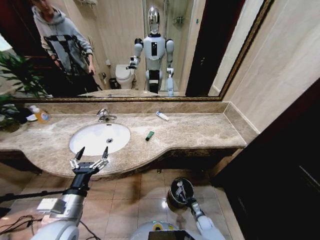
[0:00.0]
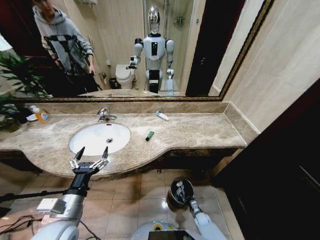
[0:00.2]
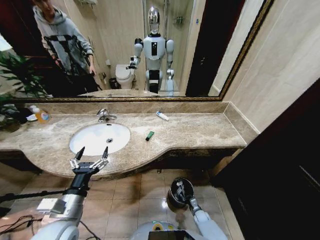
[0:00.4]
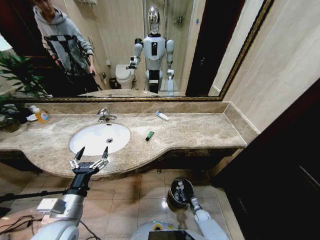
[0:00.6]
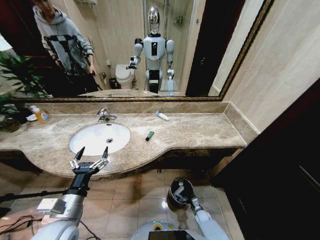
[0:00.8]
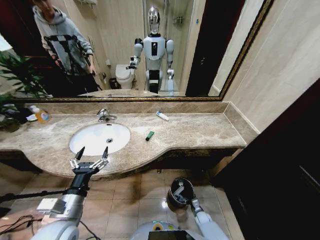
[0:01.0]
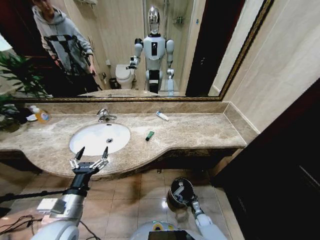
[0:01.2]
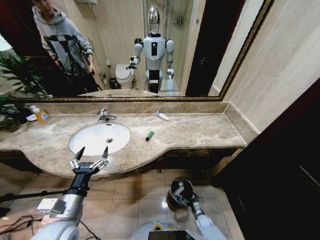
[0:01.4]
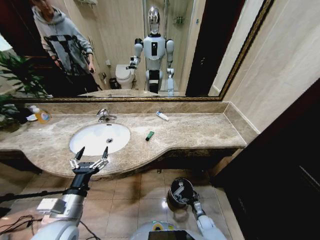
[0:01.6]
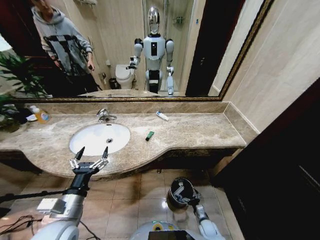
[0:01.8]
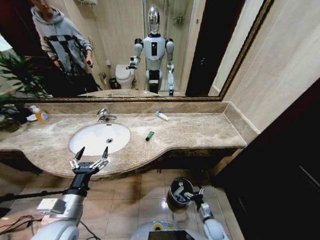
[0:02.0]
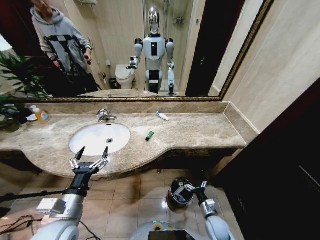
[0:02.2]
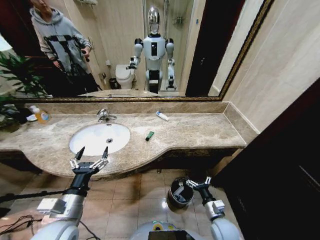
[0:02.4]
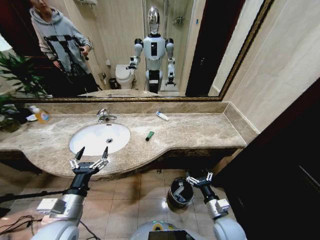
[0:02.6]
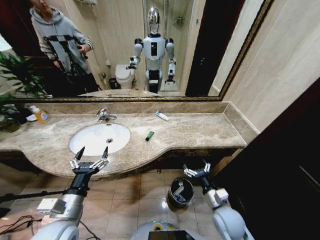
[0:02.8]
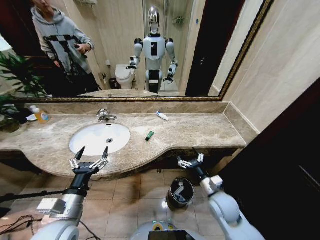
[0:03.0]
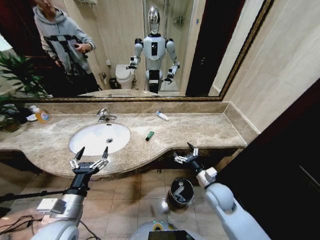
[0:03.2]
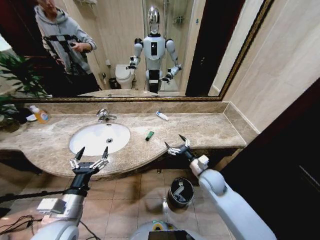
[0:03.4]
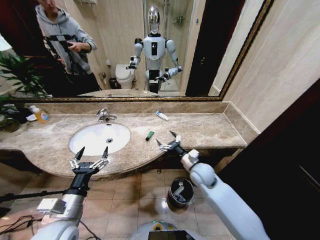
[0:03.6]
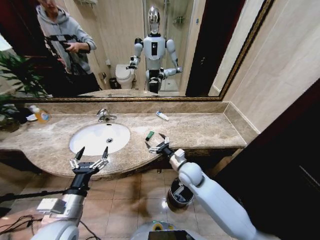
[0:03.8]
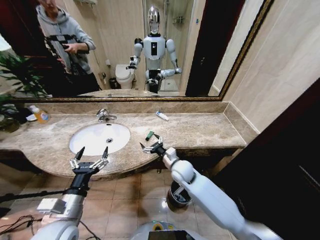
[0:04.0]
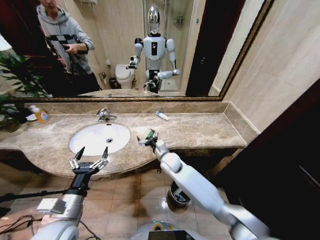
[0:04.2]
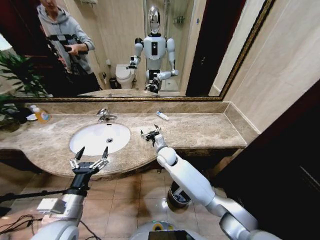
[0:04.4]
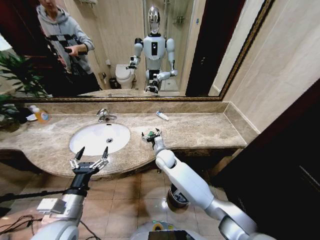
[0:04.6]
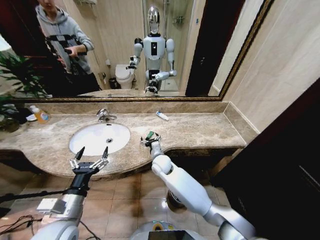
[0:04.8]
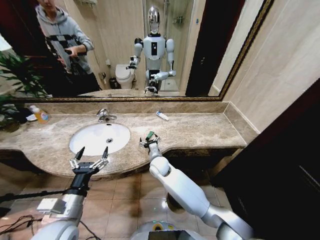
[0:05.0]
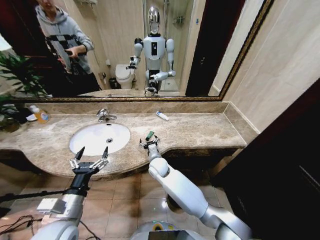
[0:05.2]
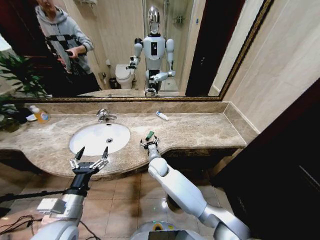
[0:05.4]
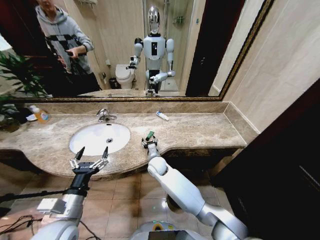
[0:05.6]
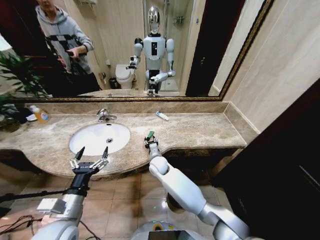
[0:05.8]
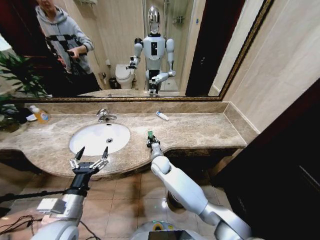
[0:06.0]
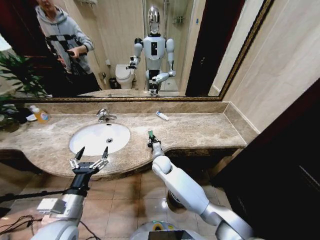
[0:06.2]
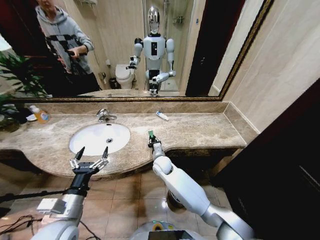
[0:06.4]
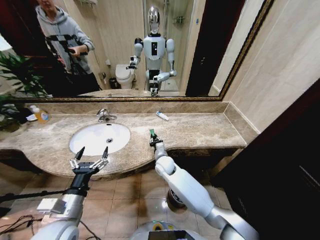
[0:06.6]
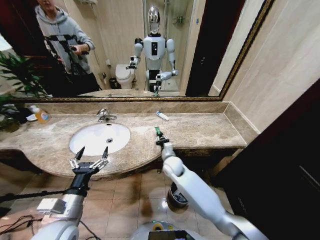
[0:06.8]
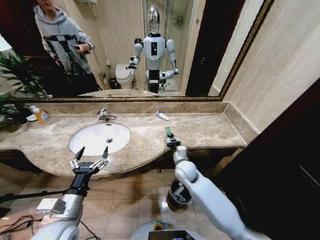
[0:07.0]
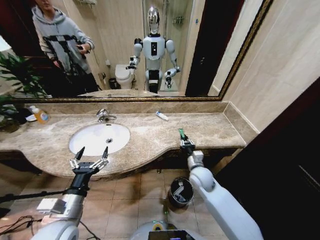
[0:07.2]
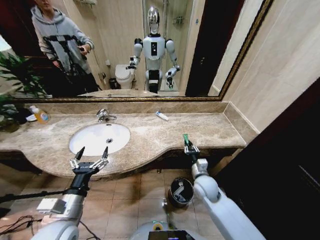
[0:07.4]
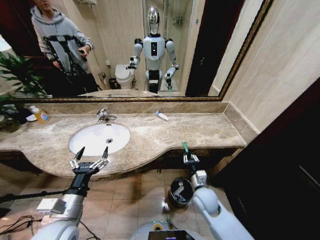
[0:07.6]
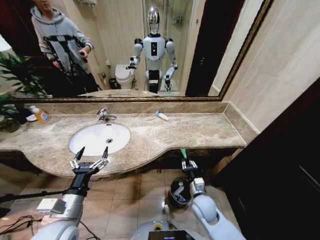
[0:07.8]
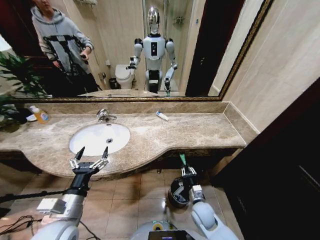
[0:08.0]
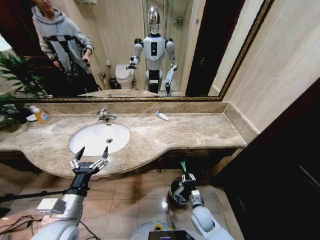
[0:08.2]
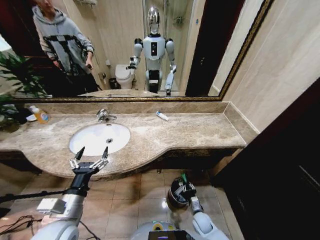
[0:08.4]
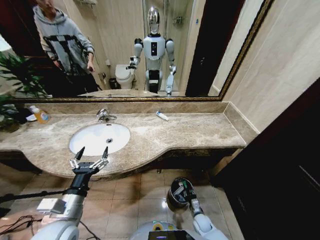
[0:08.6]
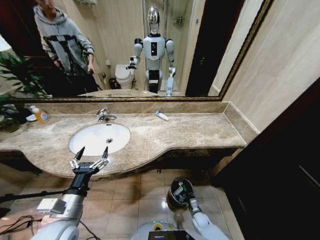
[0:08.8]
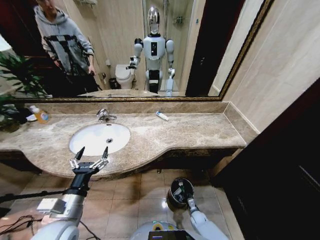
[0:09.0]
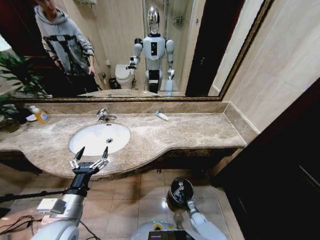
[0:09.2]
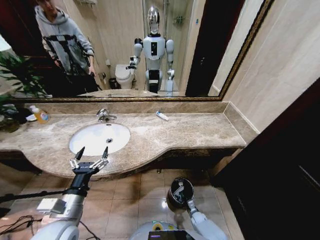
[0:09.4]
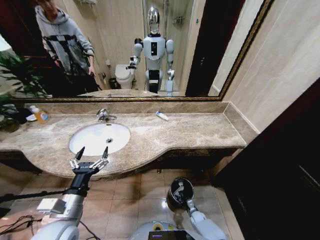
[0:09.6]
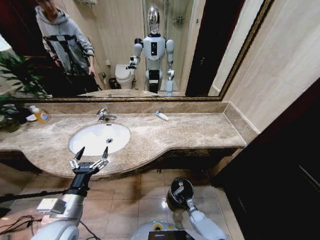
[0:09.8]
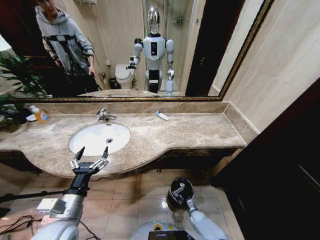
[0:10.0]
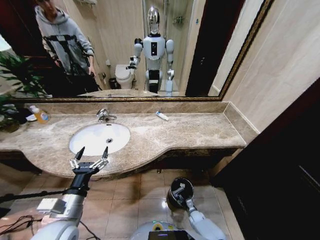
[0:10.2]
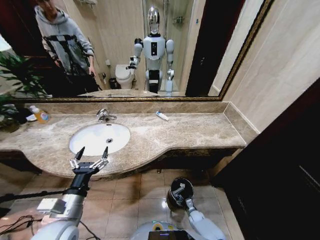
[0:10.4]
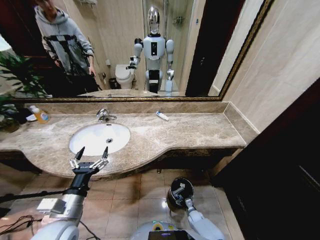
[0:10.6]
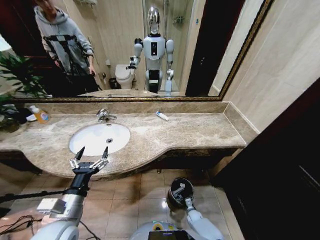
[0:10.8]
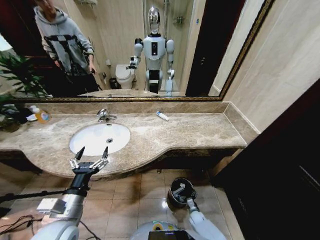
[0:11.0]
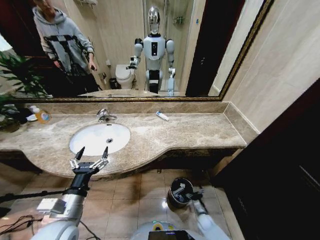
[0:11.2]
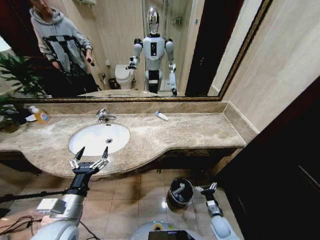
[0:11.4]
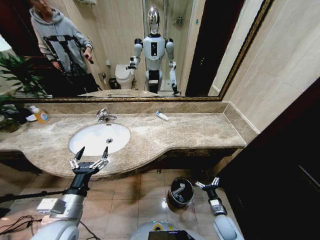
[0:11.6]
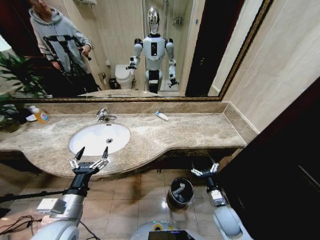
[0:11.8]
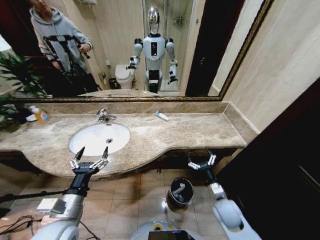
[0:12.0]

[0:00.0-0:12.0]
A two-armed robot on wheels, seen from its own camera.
Task of the whole recording: Pick up the trash from the sink and place it in the trash bin.
0:01.6 to 0:03.0: The right gripper shifts roughly 35 cm upward.
0:03.0 to 0:04.4: The right gripper heads forward and to the left, covering roughly 30 cm.
0:04.4 to 0:06.0: The right gripper shifts by roughly 5 cm, and closes up.
0:06.0 to 0:07.6: The right gripper moves to the right and backward, approximately 25 cm.
0:07.6 to 0:09.0: The right gripper heads downward, covering about 30 cm.
0:09.0 to 0:10.4: The right gripper opens up.
0:10.4 to 0:12.0: The right gripper heads upward, covering some 35 cm.

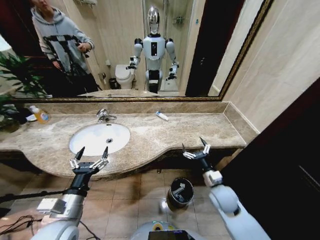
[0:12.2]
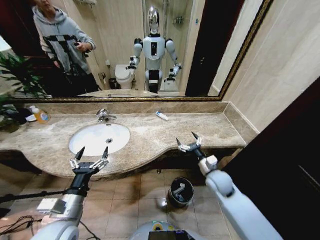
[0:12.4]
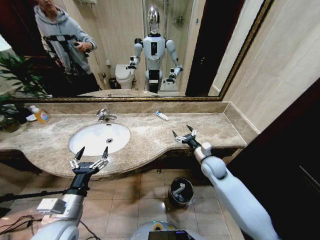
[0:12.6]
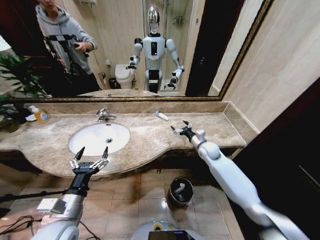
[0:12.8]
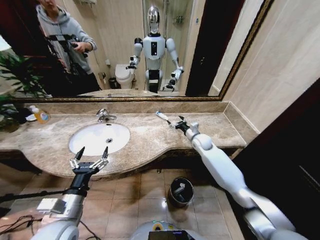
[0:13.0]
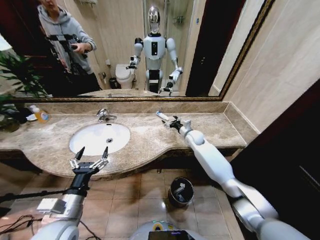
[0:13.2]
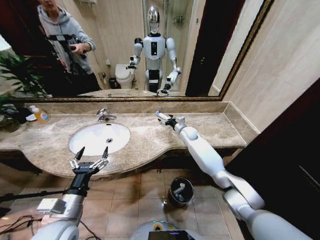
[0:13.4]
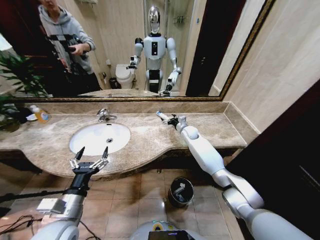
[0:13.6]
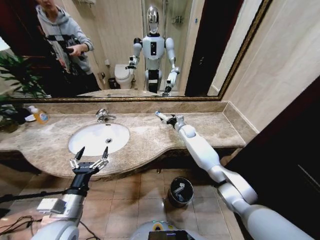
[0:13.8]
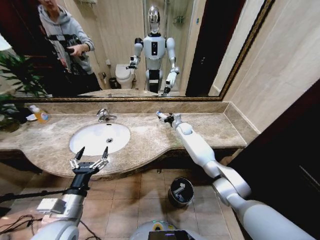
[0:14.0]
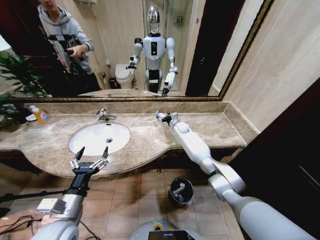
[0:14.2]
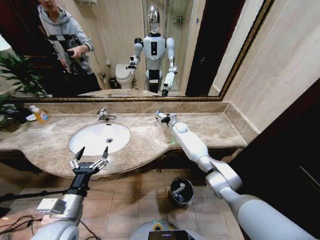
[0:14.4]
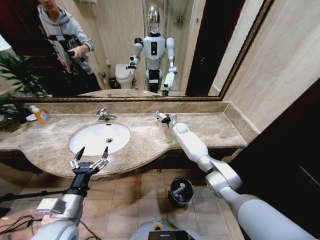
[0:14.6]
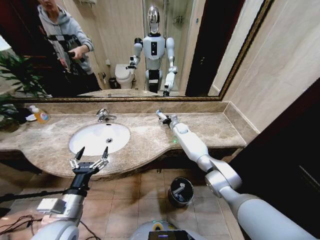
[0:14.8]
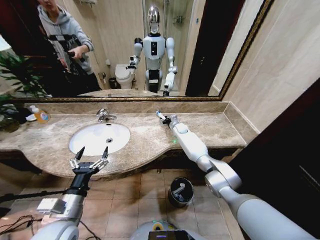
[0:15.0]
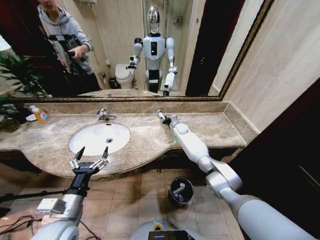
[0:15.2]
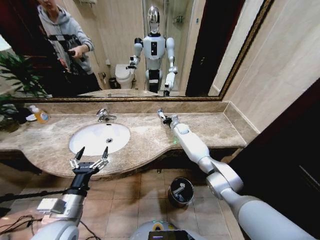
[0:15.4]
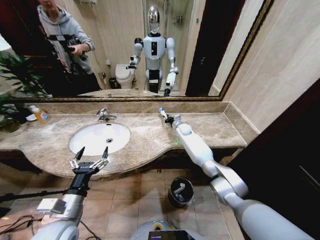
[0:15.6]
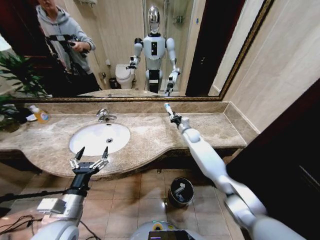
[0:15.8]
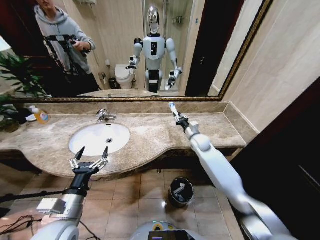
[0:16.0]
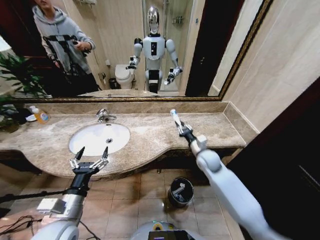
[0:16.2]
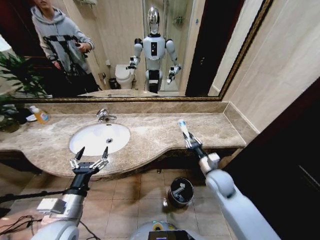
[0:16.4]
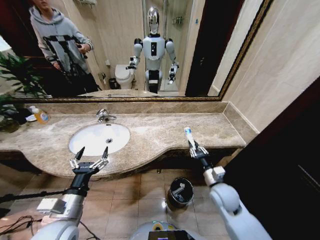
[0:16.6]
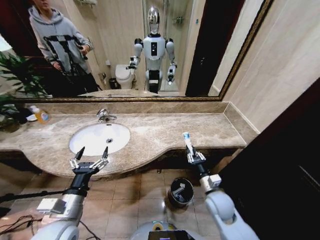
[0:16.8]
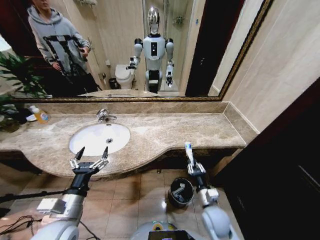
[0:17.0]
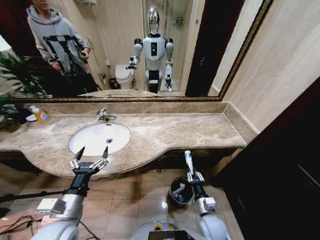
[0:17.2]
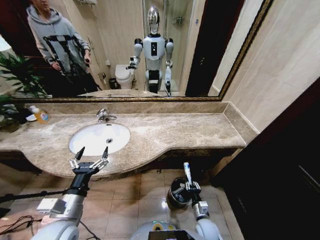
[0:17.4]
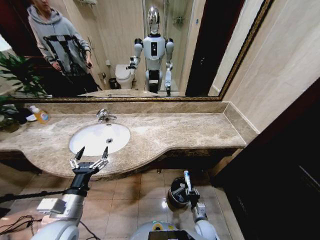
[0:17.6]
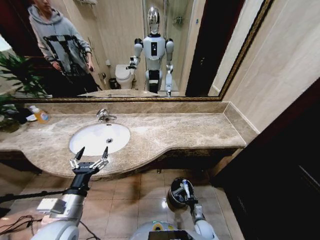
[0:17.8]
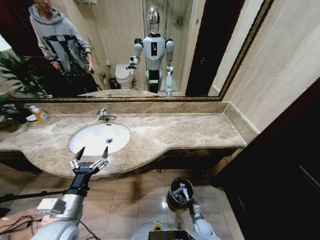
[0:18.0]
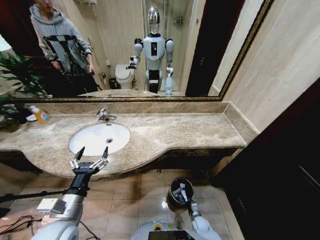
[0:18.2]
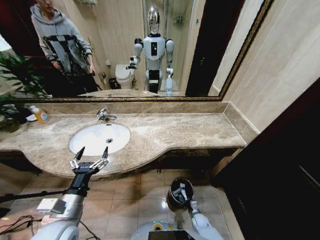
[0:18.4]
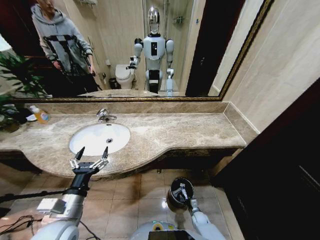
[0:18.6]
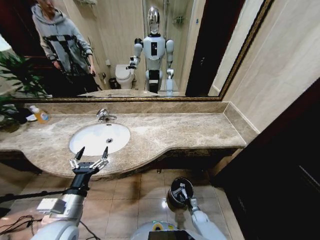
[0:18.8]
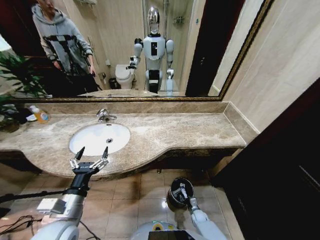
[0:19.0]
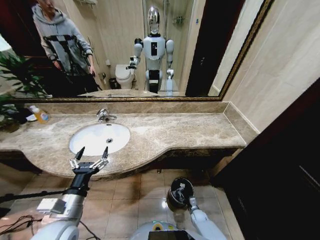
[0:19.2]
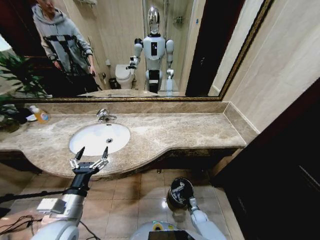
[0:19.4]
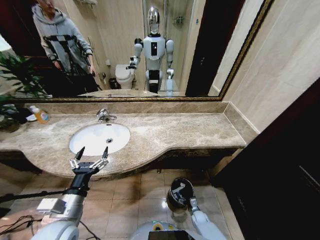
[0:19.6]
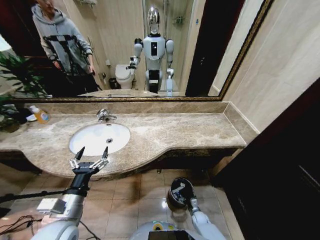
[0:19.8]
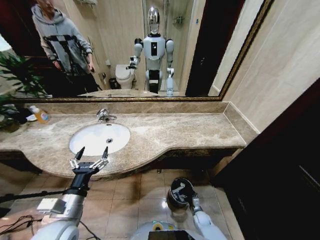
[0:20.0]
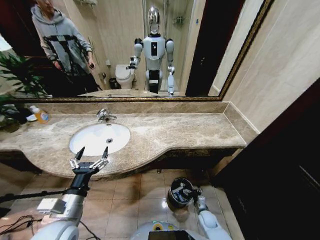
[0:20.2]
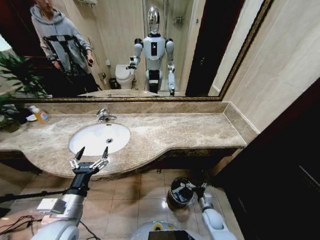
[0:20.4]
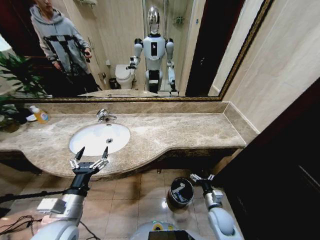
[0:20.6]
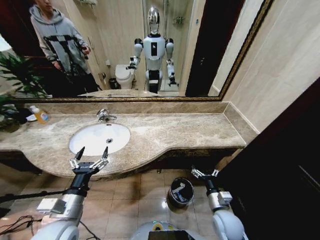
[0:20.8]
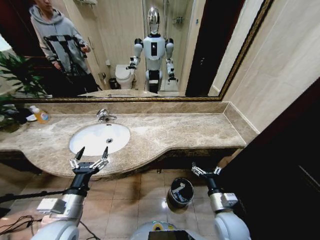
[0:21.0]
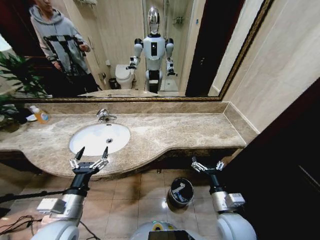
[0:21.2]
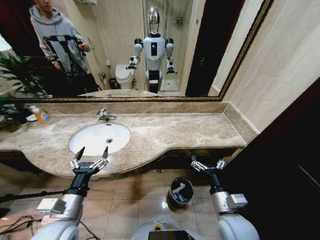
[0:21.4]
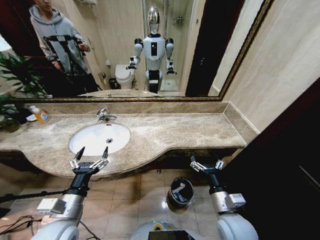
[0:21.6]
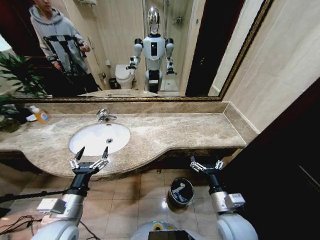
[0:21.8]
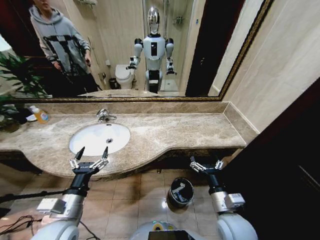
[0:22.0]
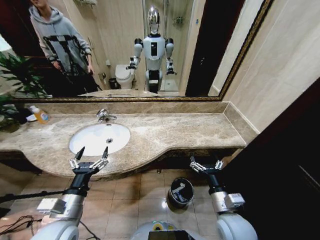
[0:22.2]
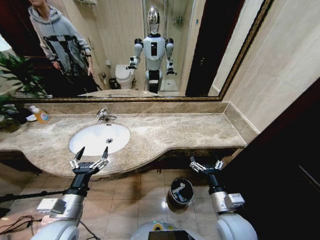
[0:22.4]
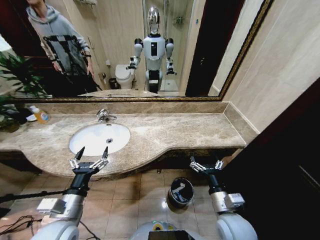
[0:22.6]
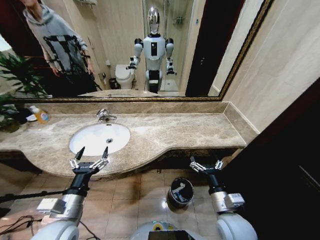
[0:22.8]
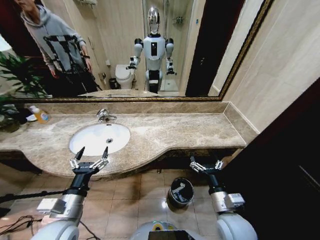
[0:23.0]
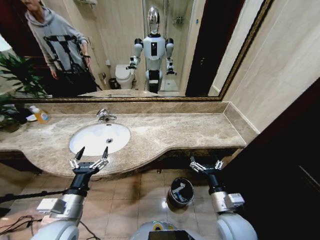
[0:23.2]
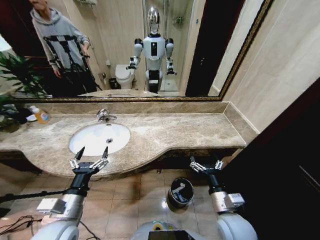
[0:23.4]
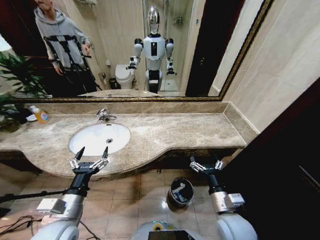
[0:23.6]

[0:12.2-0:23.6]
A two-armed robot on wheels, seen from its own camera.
Task of the whole recording: Pick up the trash from the sink and place it in the trash bin.
0:12.2 to 0:13.6: The right gripper goes some 35 cm forward.
0:13.6 to 0:15.0: The right gripper shifts approximately 5 cm forward, and closes.
0:15.0 to 0:16.4: The right gripper moves backward, some 35 cm.
0:16.4 to 0:17.8: The right gripper shifts roughly 35 cm downward and backward.
0:17.8 to 0:19.4: The right gripper goes some 10 cm downward and forward, and opens its fingers.
0:19.4 to 0:20.8: The right gripper shifts roughly 30 cm upward.
0:20.8 to 0:22.2: The right gripper travels upward by about 10 cm.
0:22.2 to 0:23.6: The two grippers keep their place.
